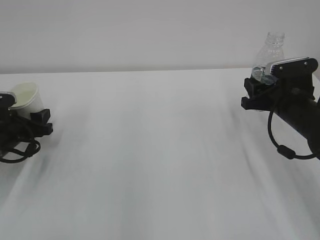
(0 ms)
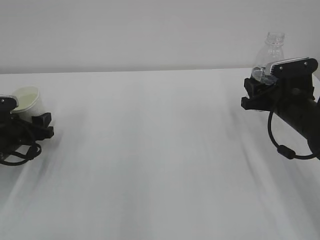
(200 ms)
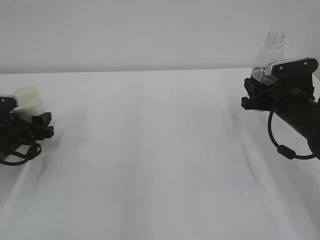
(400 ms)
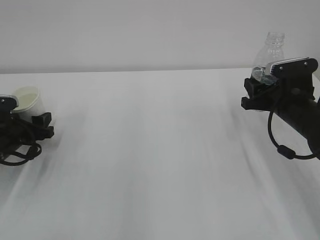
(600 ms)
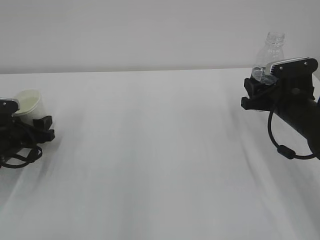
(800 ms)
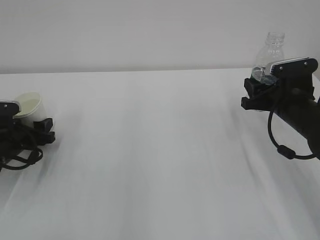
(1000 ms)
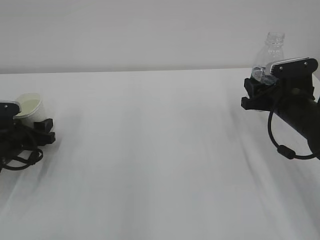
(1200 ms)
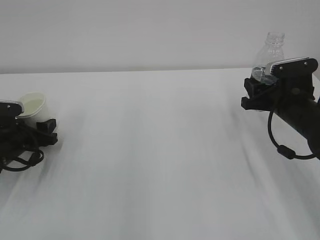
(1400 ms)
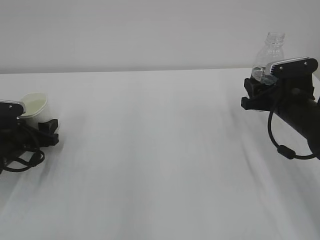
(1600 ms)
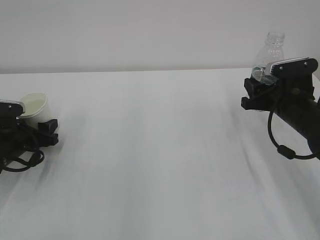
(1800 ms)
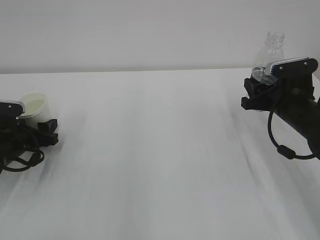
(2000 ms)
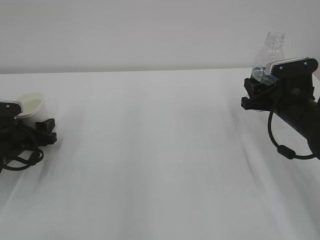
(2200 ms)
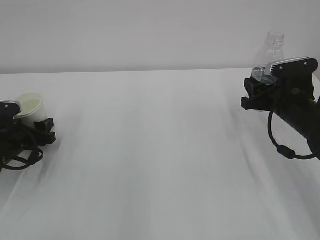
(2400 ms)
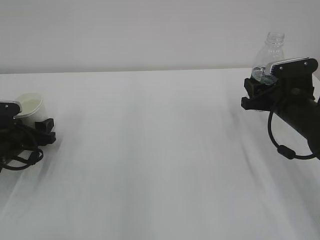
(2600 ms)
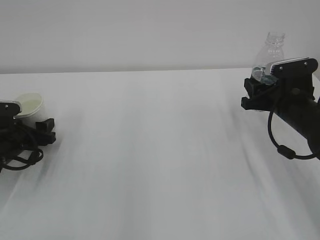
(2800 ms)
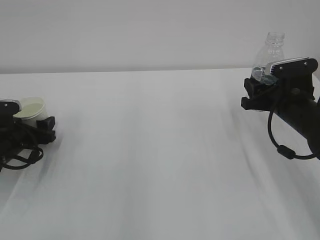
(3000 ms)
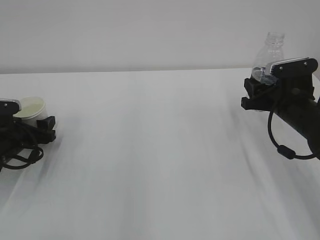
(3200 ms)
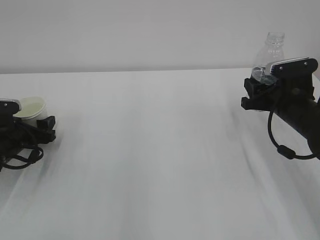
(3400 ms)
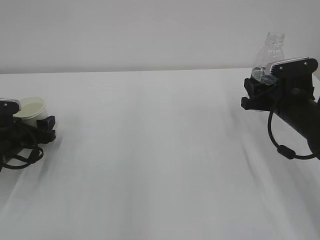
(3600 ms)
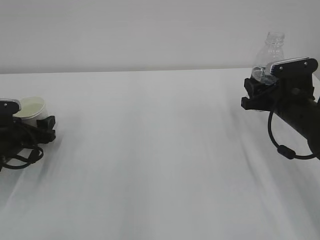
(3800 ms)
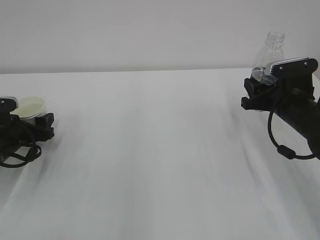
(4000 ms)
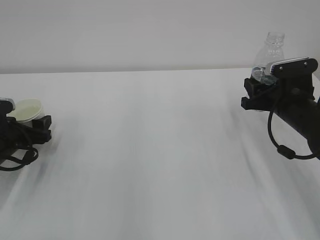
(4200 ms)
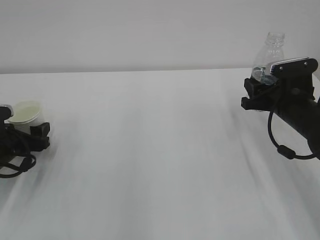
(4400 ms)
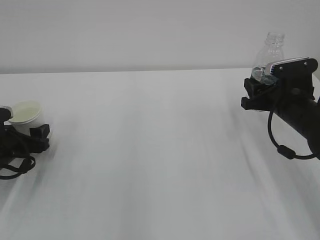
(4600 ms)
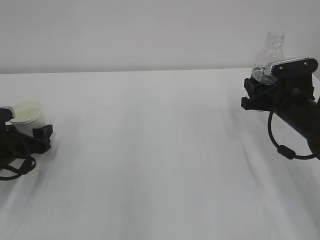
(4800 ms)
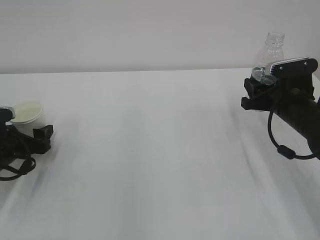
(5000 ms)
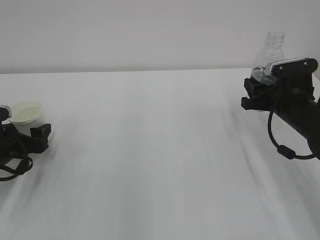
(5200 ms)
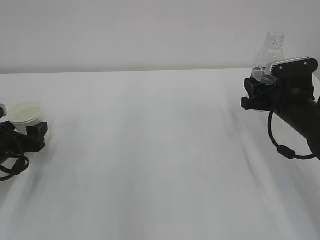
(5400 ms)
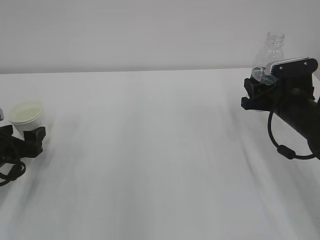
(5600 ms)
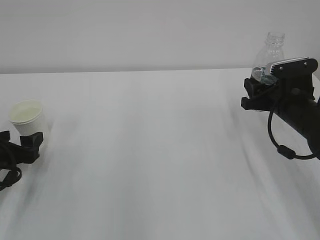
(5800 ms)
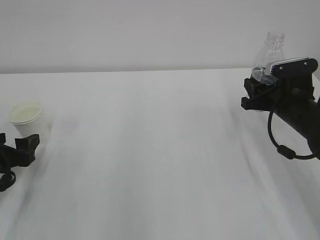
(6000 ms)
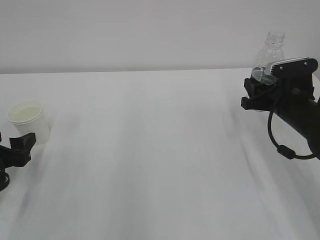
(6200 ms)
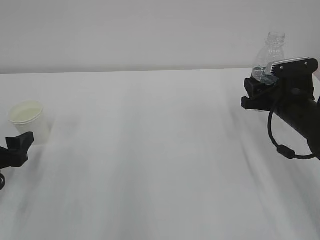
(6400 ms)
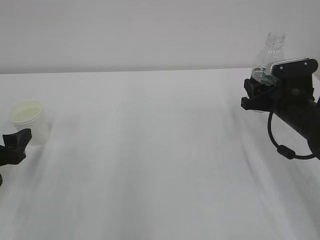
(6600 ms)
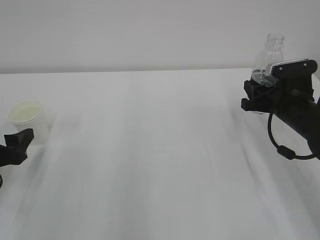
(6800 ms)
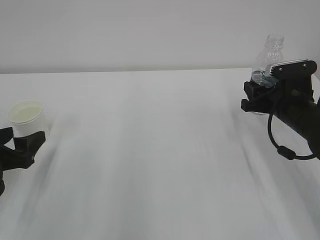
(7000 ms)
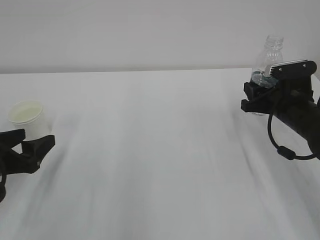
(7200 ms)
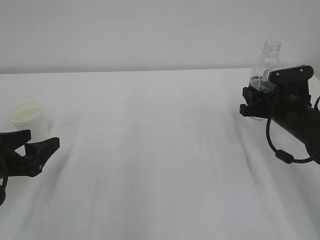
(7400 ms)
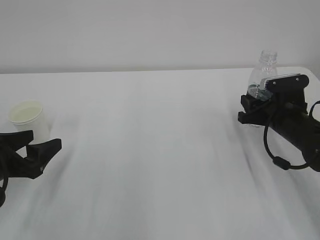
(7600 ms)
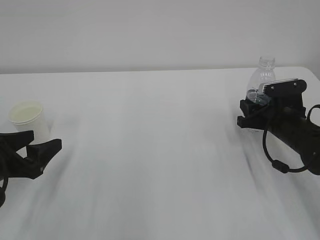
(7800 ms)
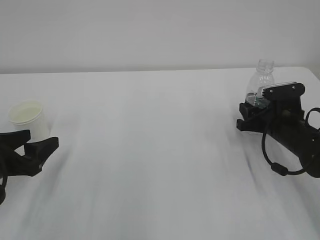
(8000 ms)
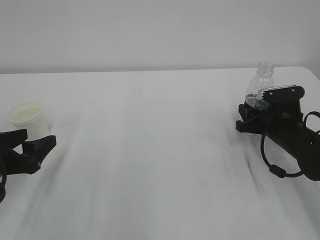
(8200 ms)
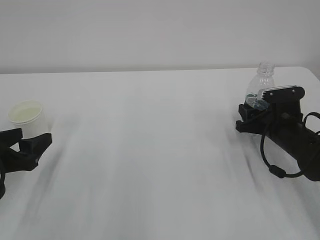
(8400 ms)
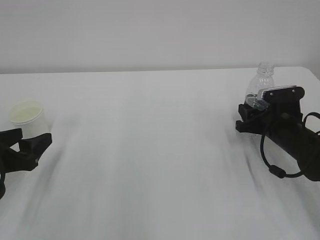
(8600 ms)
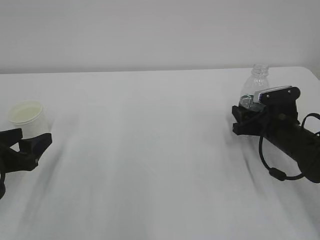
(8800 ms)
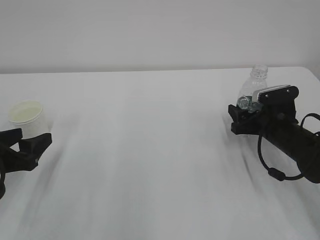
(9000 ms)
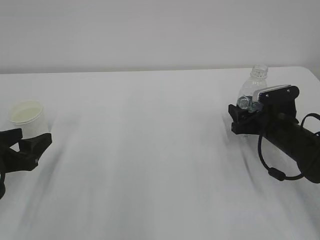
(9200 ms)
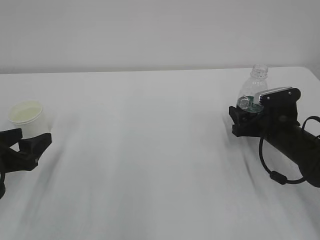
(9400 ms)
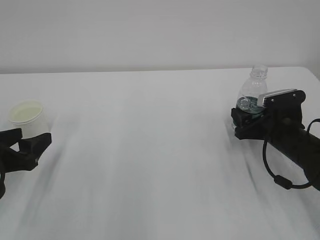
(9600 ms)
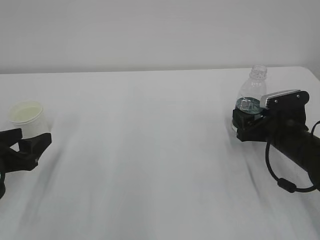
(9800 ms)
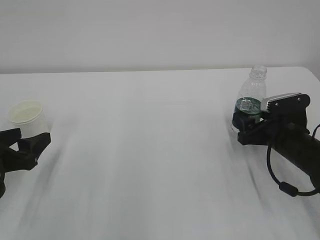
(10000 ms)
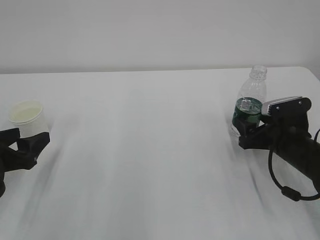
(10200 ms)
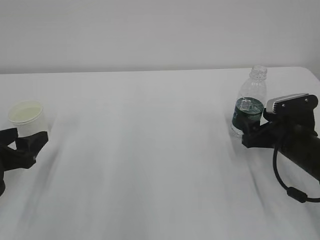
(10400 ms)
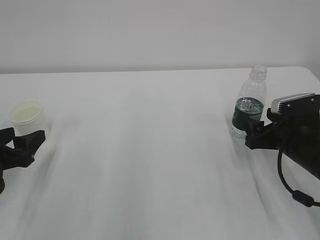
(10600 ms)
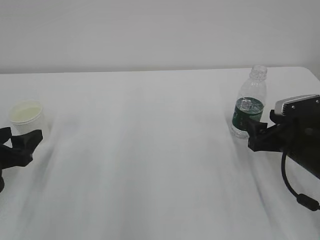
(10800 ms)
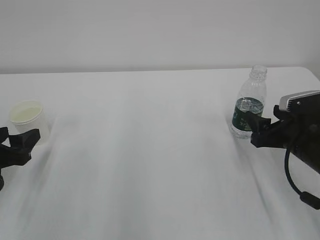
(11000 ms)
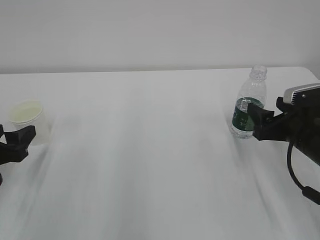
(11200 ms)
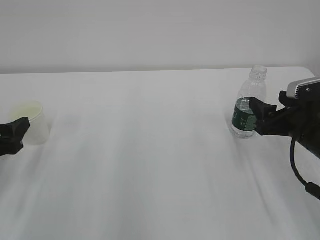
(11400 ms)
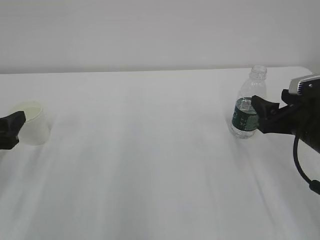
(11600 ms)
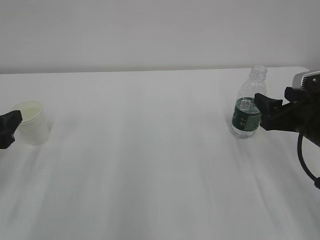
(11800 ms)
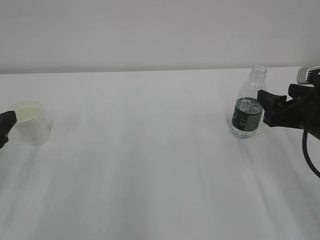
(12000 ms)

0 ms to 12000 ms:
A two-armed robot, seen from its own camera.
0 ms to 1600 ms: The grippers move only a little.
1600 ms to 3000 ms: The left gripper opens up.
3000 ms to 4400 ms: The grippers make only small movements.
4400 ms to 6000 ms: The left gripper travels backward by some 5 cm.
7600 ms to 9000 ms: The right gripper opens.
9000 ms to 10400 ms: The grippers make only small movements.
10400 ms to 12000 ms: The left gripper moves upward, about 5 cm, while the right gripper shifts approximately 10 cm upward.

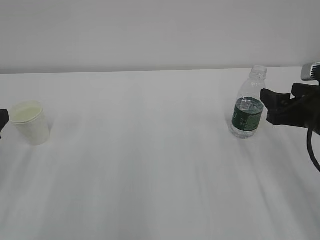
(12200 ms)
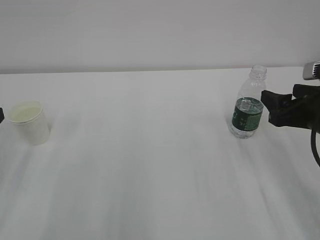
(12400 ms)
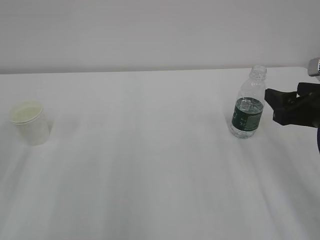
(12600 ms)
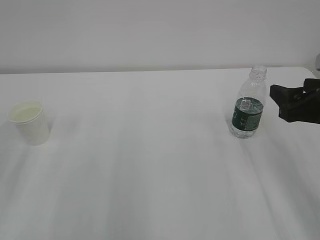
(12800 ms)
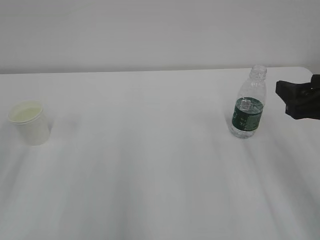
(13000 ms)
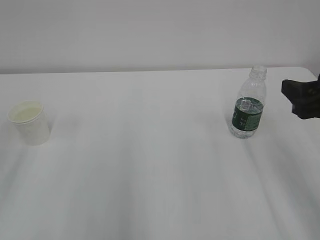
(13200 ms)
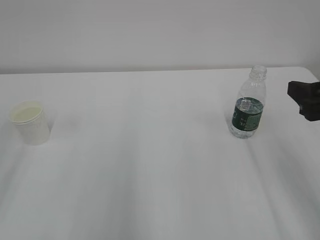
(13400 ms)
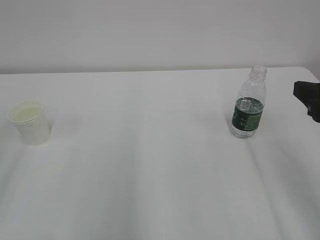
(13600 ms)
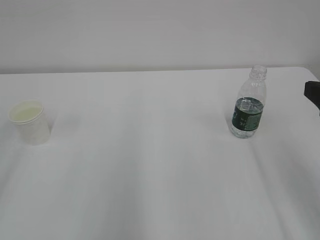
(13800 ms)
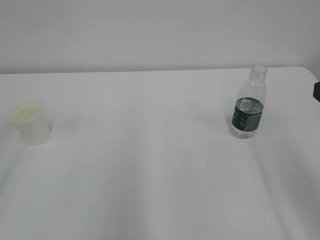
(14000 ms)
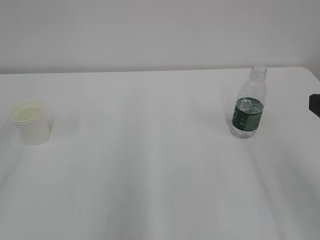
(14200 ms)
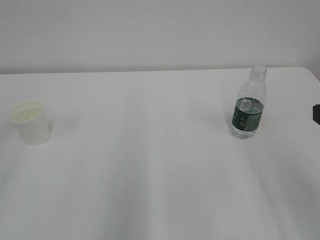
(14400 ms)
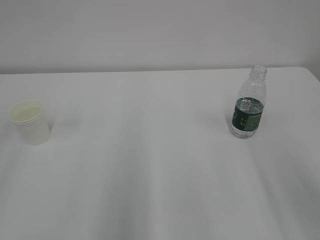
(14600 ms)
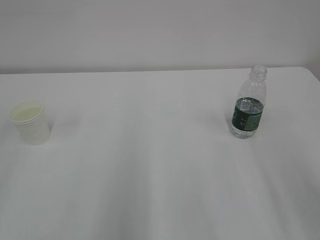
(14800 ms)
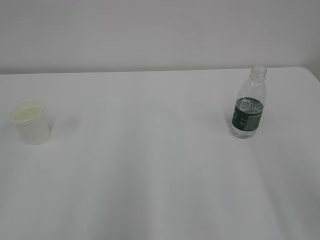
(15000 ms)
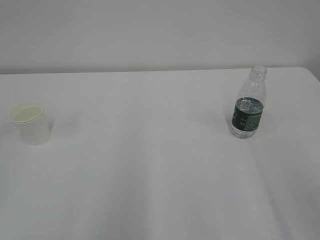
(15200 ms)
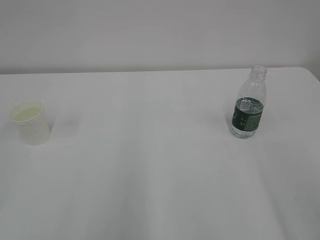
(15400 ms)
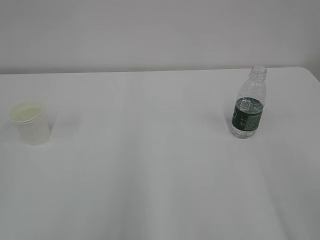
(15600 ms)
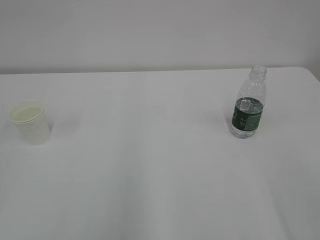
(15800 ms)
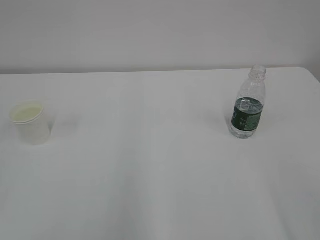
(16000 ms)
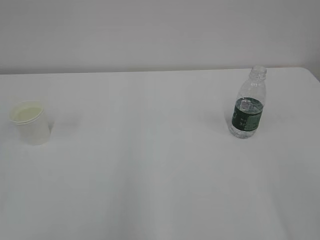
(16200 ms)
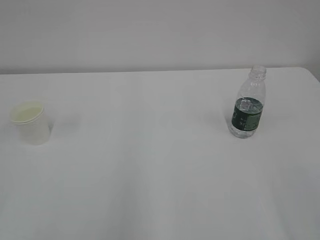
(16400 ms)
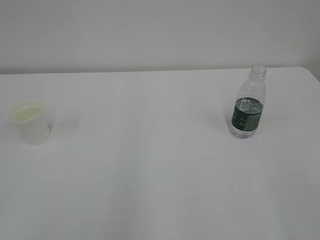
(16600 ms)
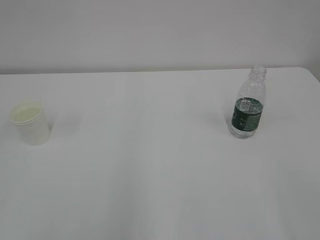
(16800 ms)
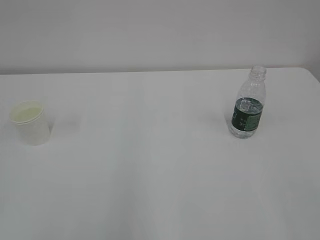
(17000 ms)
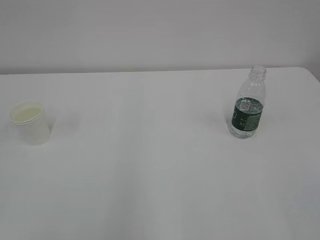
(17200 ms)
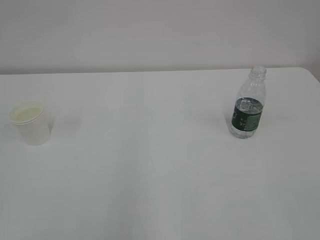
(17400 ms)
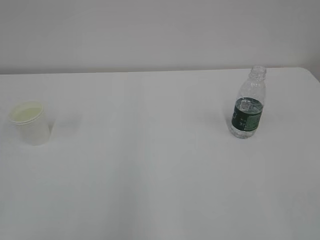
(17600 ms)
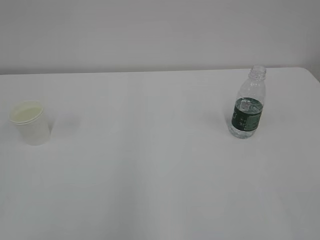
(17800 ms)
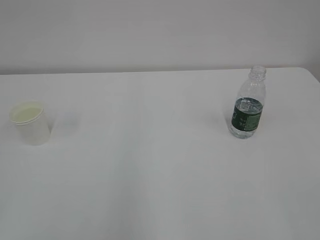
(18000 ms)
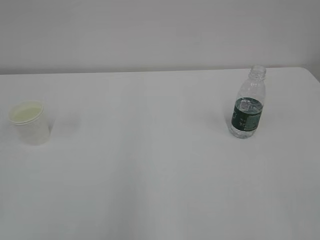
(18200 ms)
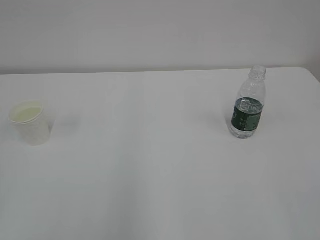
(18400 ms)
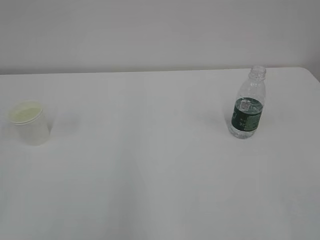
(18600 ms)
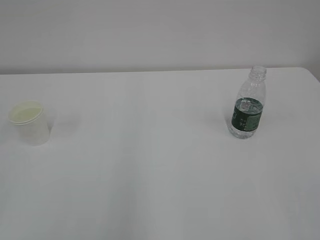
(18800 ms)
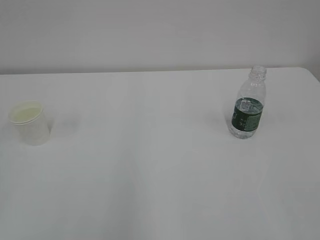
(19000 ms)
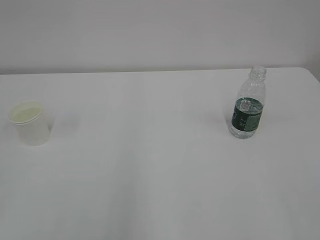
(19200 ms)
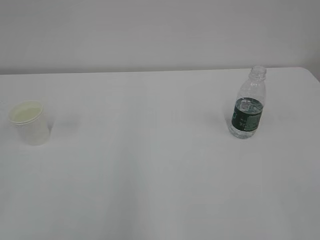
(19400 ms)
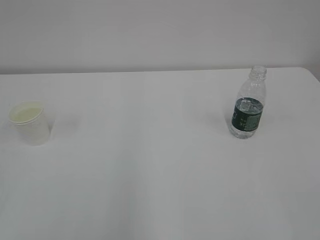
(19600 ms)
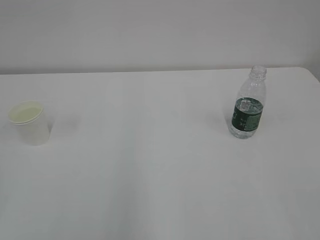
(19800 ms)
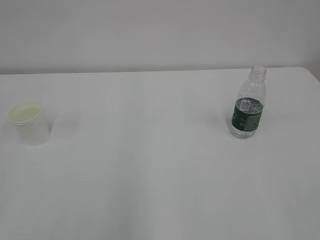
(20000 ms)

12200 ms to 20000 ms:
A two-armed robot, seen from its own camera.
12200 ms to 13800 ms: The right gripper moves upward and backward, about 10 cm.
18400 ms to 20000 ms: Neither gripper changes place.

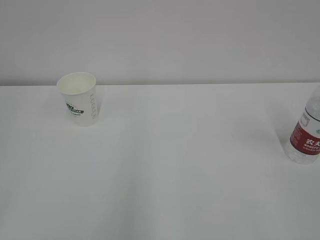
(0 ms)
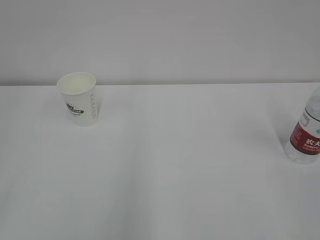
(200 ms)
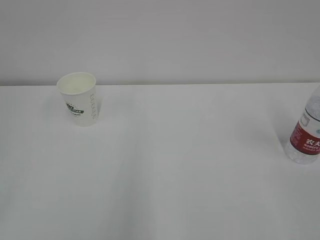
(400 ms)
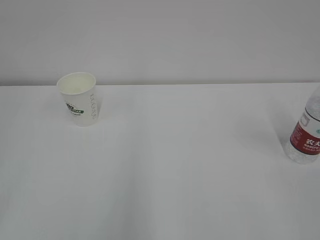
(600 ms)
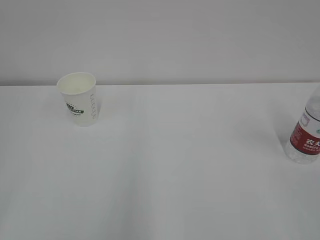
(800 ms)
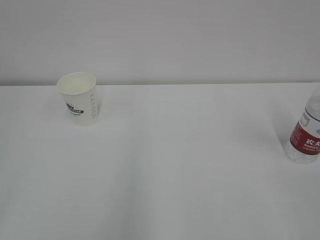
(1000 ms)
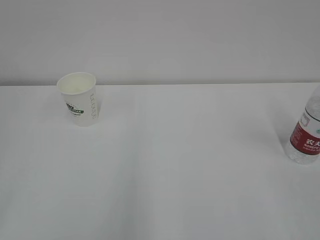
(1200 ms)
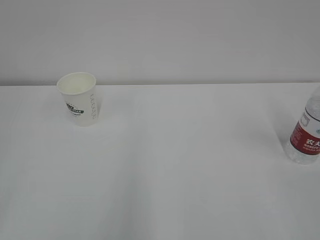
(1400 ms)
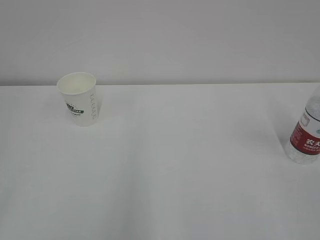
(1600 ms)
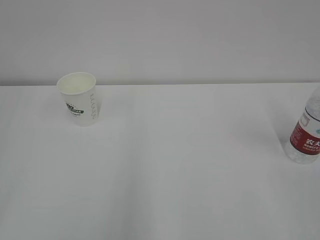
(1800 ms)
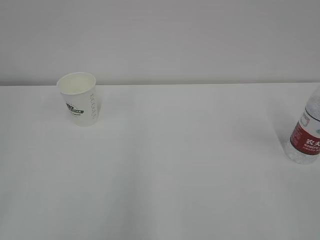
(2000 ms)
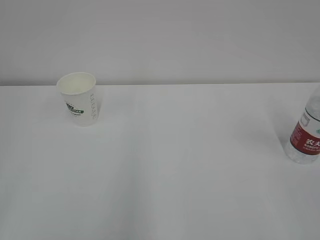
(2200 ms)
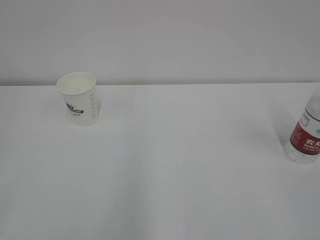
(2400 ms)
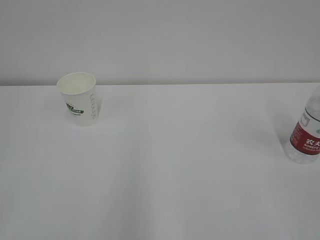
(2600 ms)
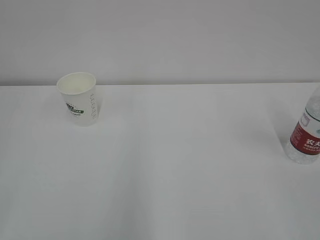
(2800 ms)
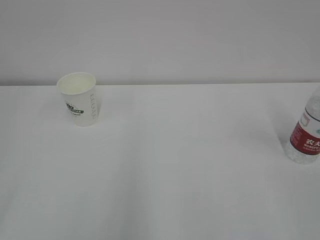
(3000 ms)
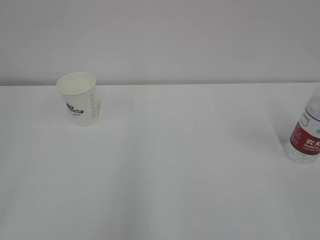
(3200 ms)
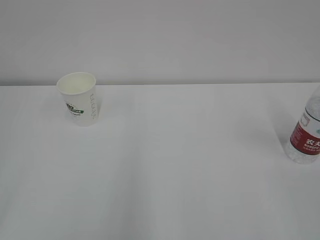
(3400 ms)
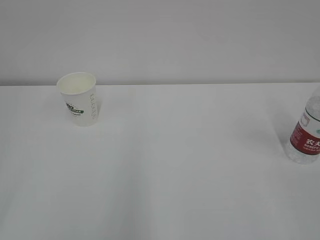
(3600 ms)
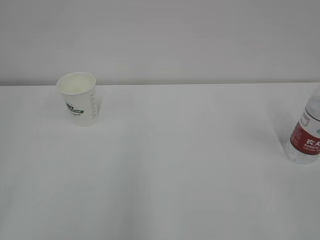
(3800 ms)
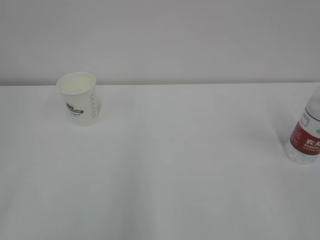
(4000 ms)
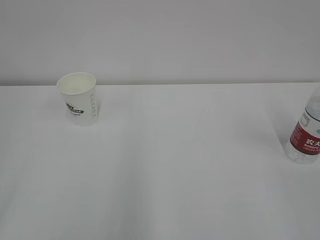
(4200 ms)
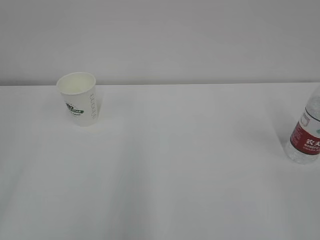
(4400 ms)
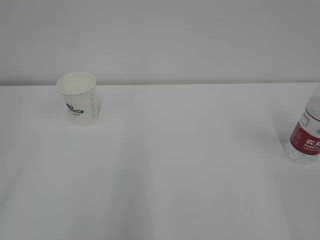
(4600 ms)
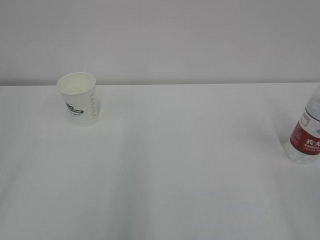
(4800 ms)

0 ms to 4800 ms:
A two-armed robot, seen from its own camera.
1600 ms to 3200 ms: Neither gripper changes place.
